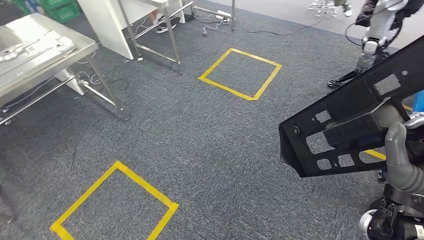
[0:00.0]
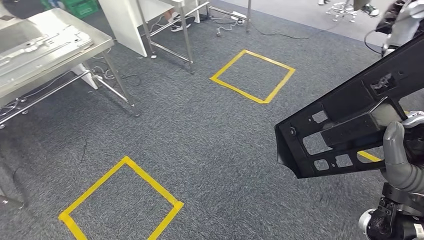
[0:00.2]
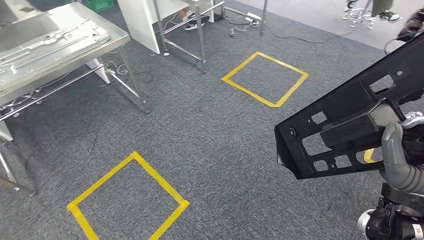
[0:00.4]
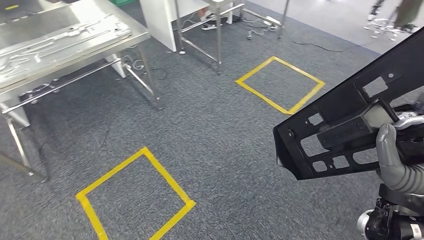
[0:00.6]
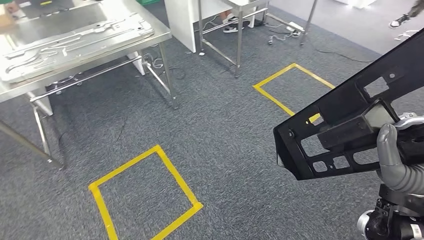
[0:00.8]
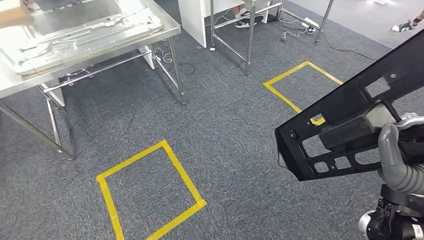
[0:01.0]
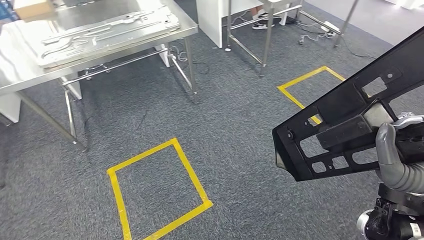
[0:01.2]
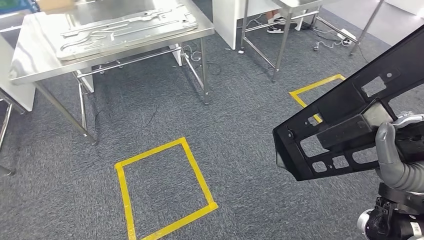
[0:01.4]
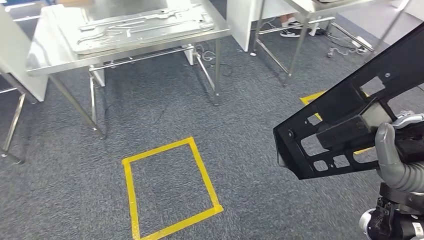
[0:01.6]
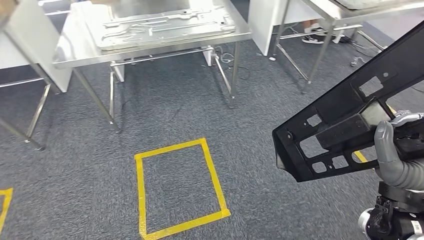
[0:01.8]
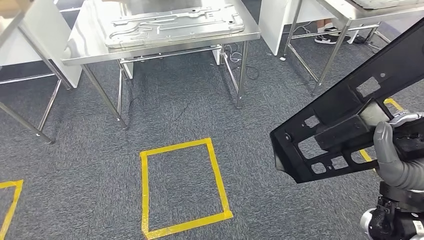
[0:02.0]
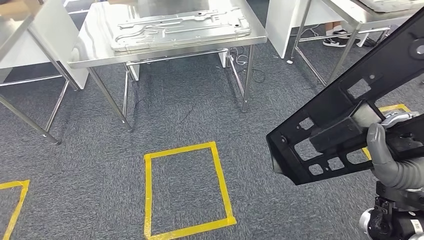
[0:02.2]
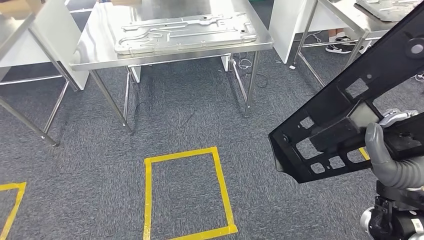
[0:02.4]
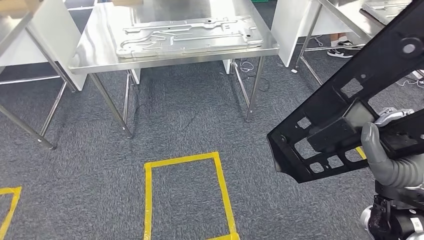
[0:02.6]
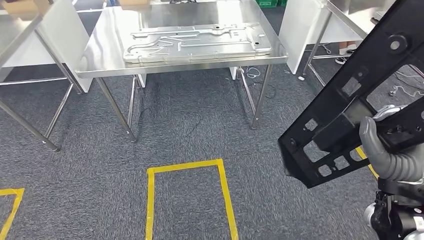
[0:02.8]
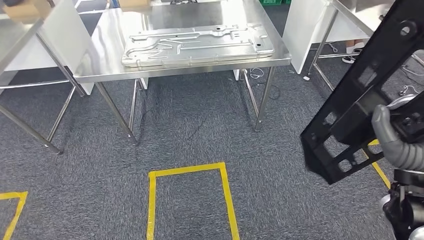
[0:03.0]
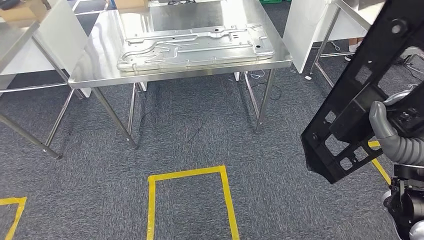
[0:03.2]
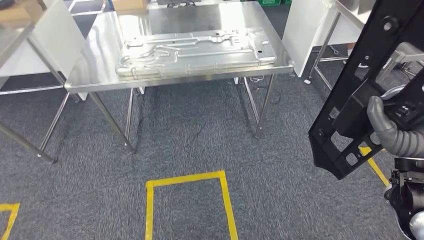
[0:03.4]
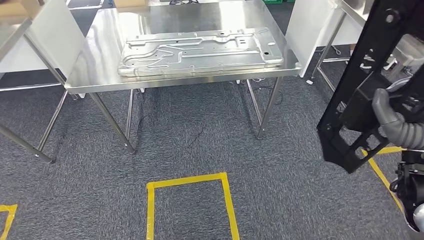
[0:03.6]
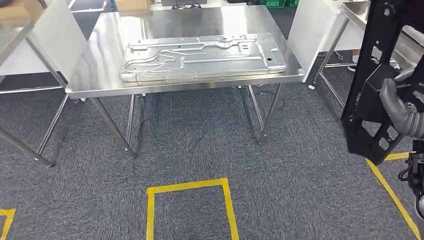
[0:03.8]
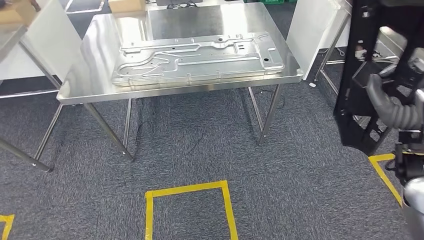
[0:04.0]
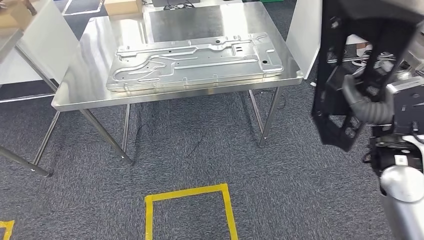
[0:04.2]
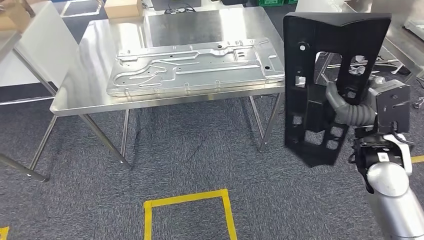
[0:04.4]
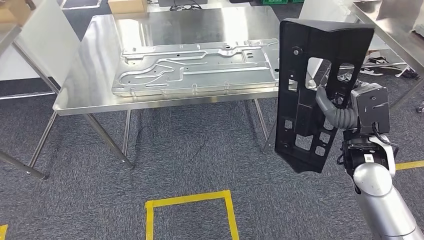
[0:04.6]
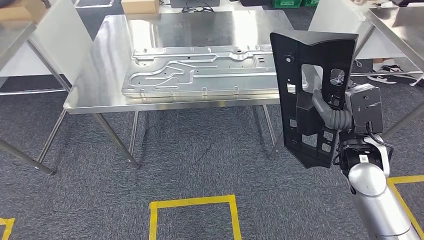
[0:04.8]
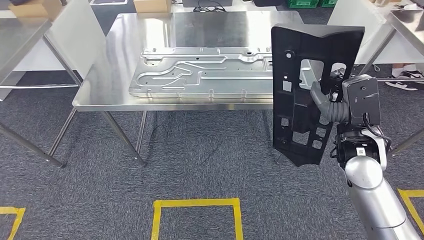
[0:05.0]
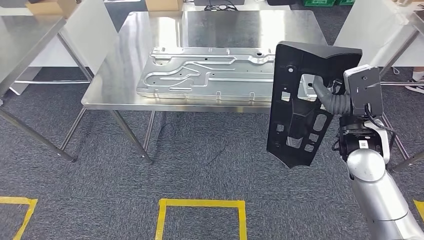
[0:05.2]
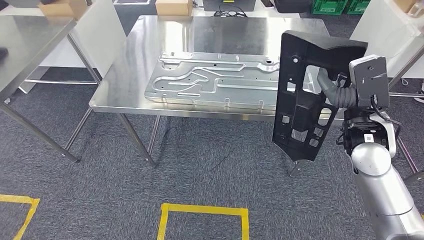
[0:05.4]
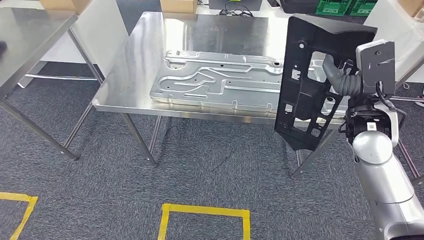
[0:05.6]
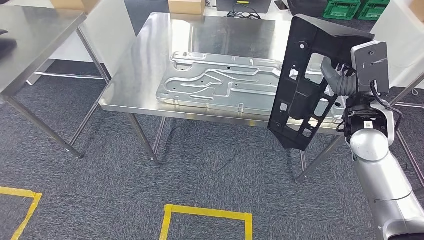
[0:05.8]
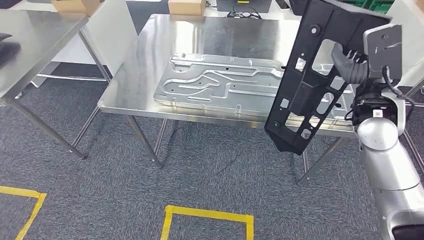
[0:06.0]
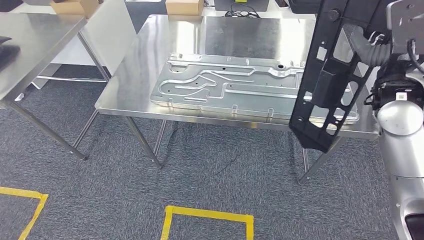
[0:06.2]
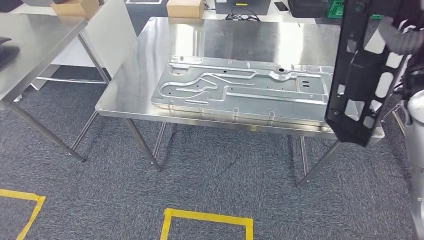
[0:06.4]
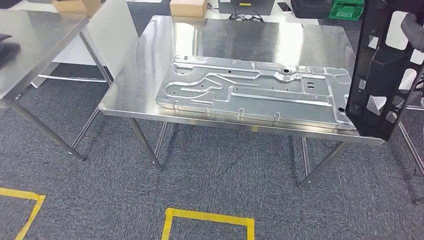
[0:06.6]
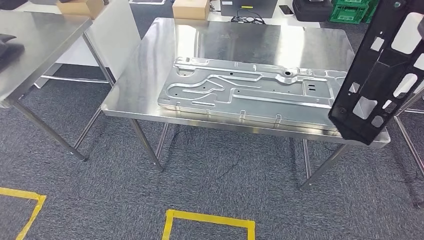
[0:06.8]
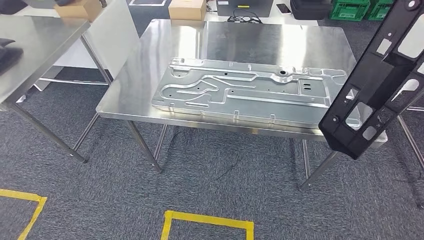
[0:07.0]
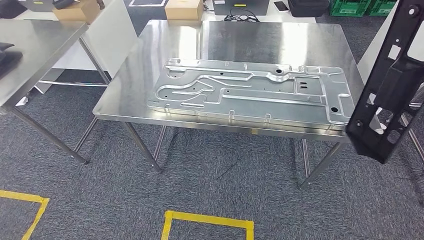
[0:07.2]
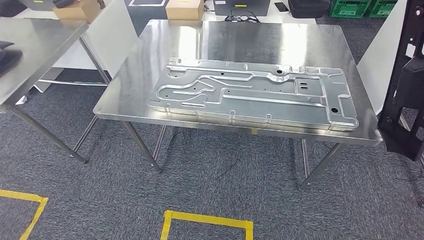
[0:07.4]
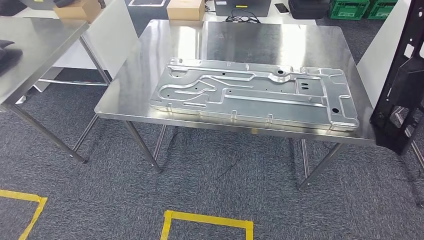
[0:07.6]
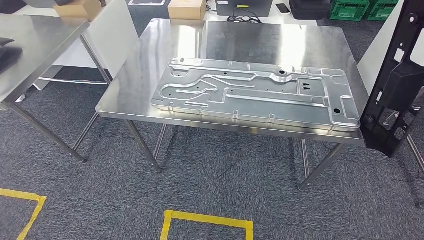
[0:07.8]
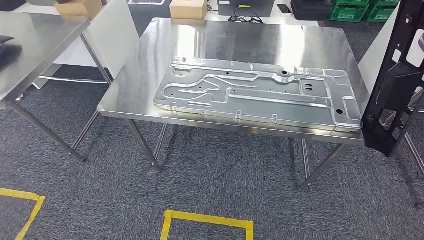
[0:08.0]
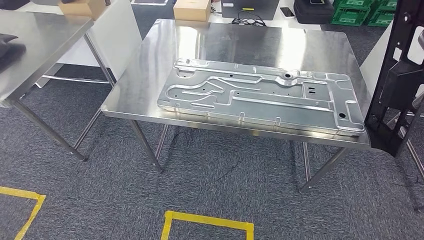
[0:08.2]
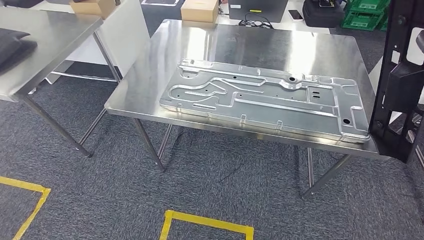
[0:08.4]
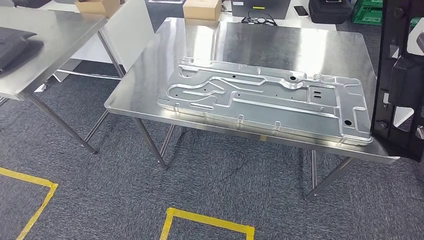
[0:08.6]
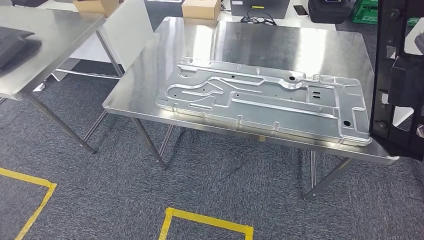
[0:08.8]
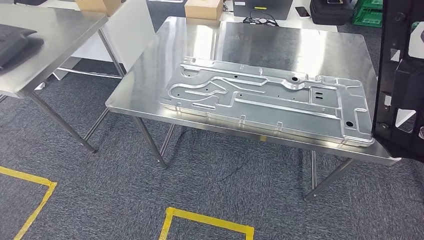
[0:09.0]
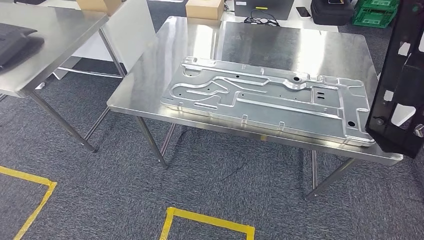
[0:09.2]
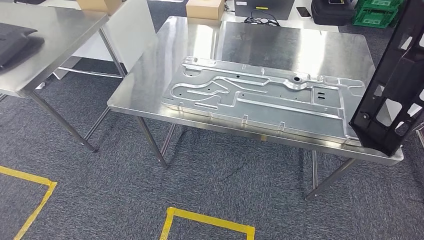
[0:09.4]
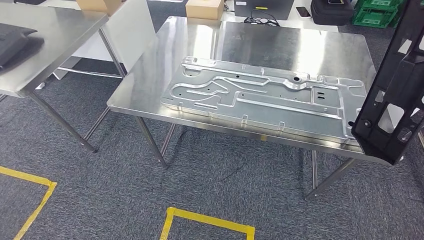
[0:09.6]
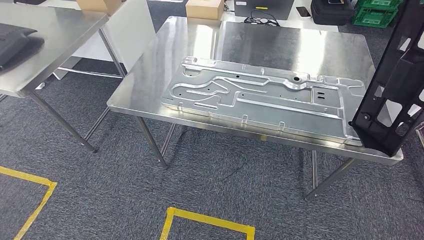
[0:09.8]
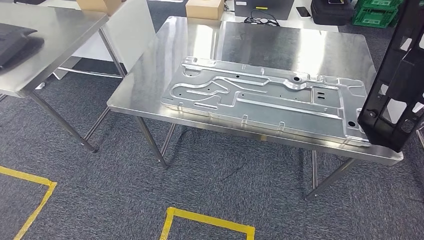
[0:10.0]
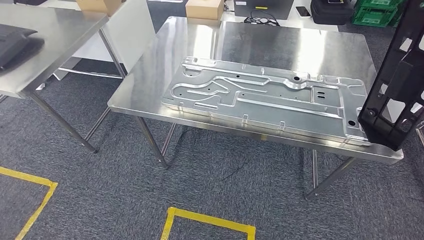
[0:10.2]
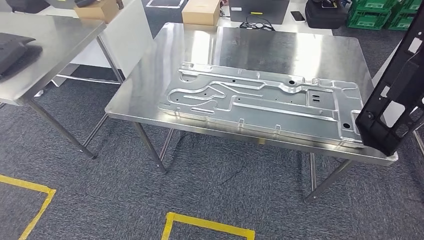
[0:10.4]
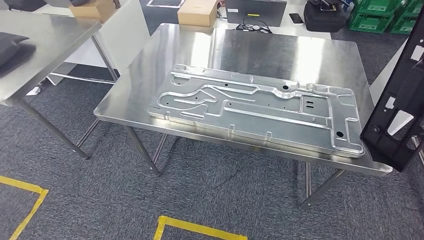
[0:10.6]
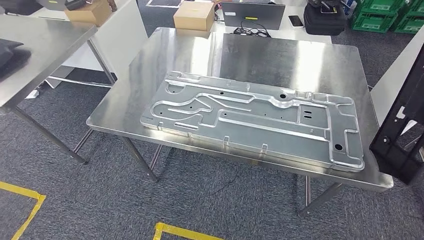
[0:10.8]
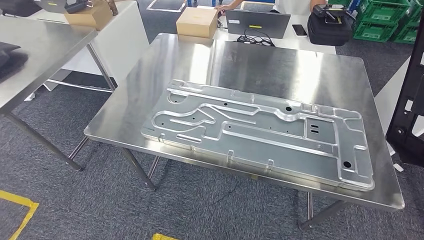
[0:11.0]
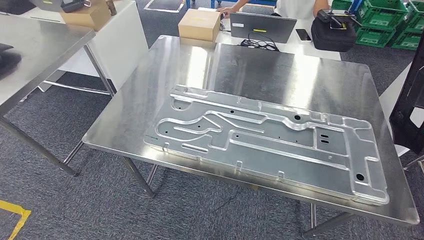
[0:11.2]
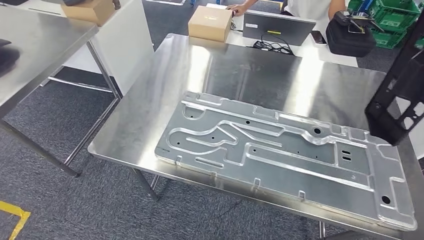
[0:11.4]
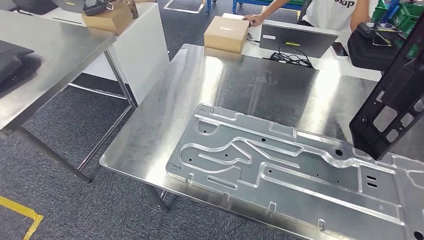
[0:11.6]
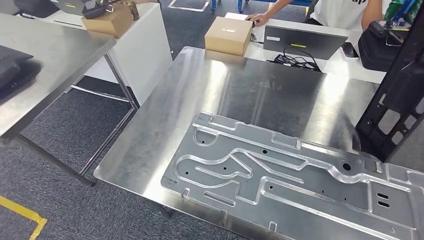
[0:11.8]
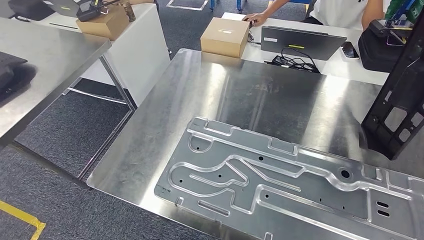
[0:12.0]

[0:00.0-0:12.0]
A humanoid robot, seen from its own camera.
Step, 0:00.0 to 0:05.6: Move the large material to the workbench.

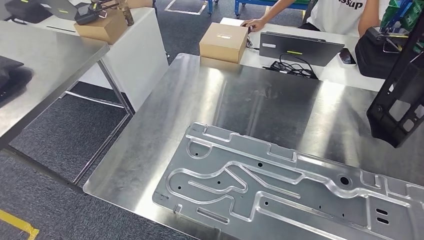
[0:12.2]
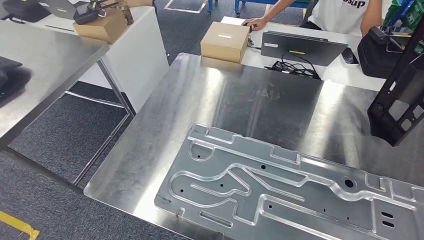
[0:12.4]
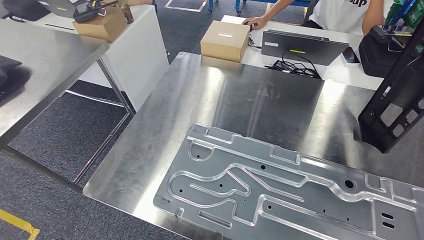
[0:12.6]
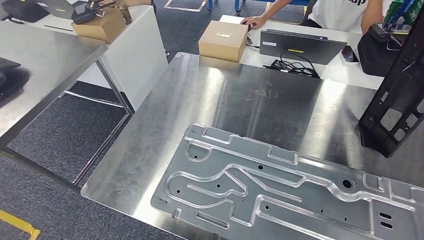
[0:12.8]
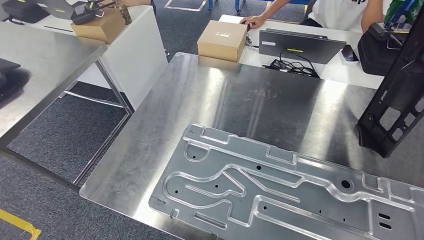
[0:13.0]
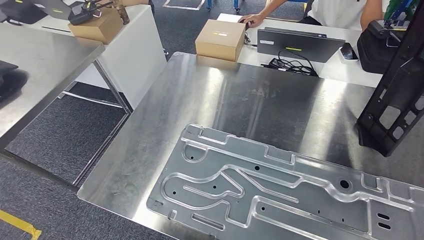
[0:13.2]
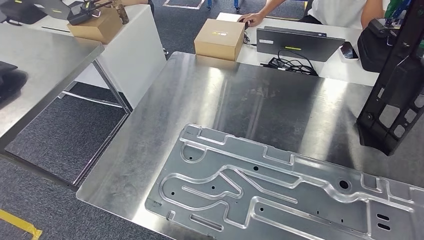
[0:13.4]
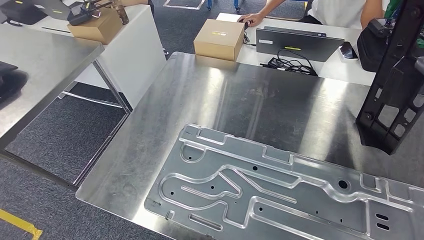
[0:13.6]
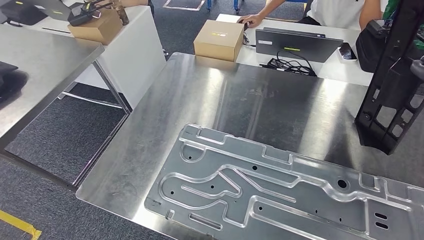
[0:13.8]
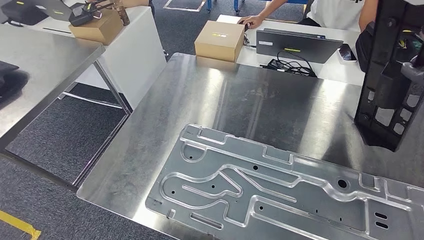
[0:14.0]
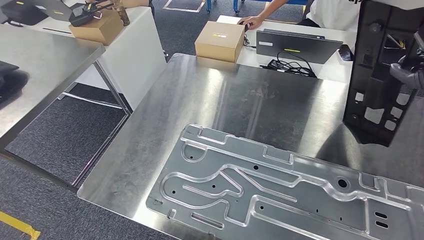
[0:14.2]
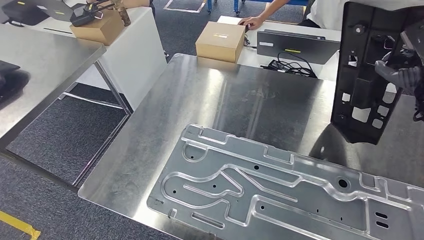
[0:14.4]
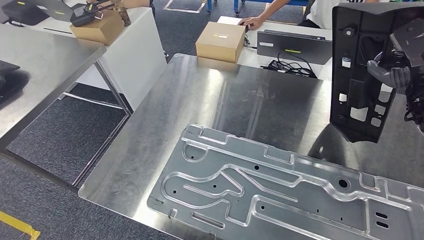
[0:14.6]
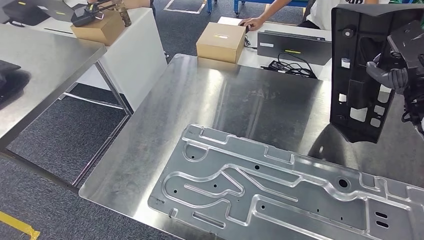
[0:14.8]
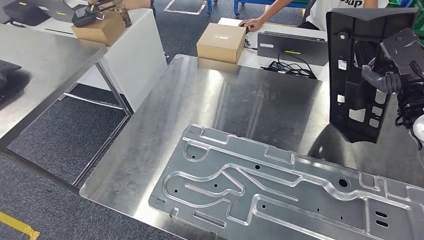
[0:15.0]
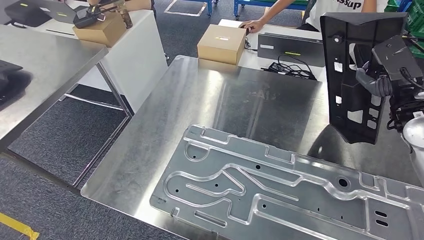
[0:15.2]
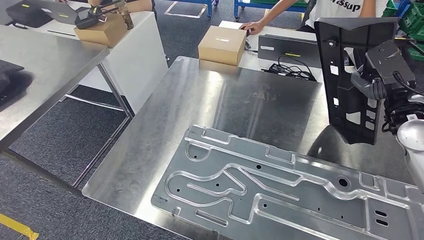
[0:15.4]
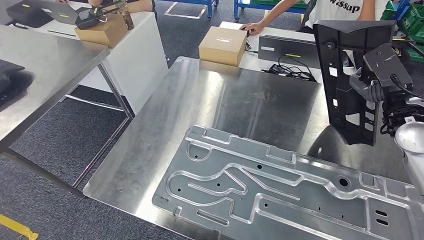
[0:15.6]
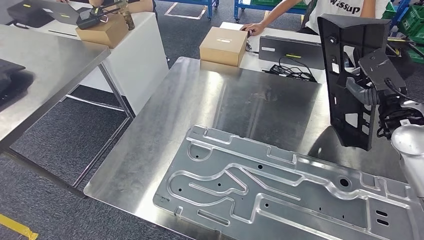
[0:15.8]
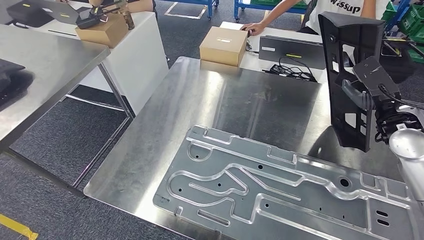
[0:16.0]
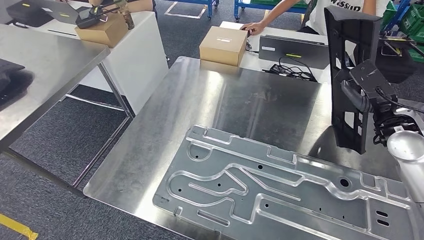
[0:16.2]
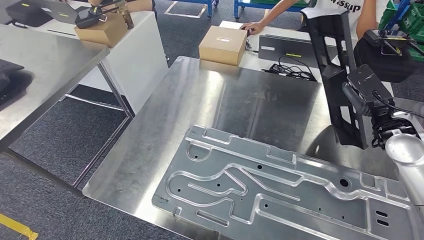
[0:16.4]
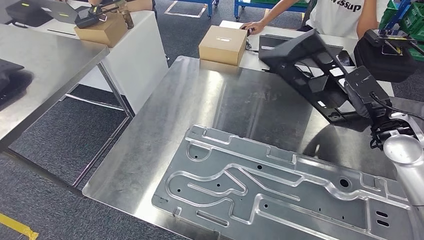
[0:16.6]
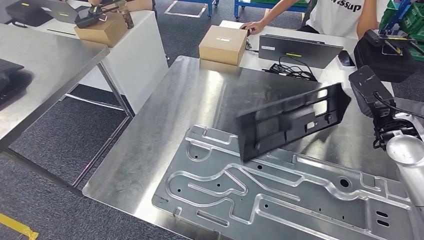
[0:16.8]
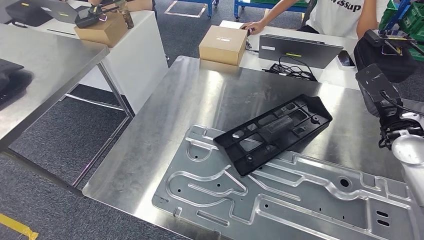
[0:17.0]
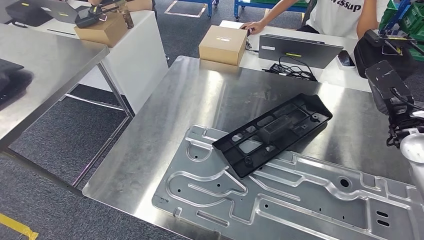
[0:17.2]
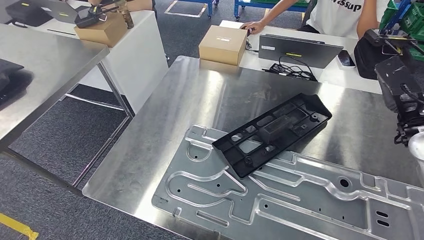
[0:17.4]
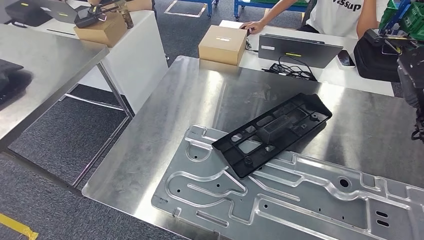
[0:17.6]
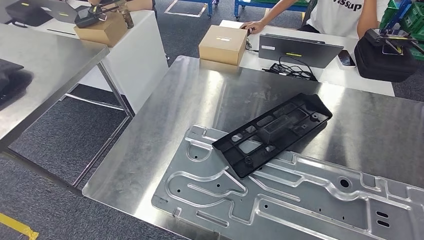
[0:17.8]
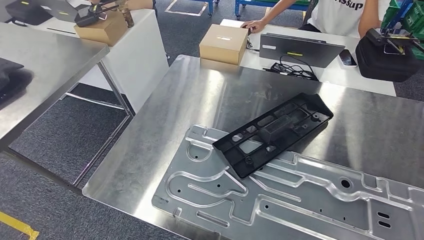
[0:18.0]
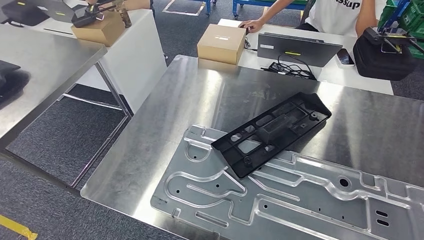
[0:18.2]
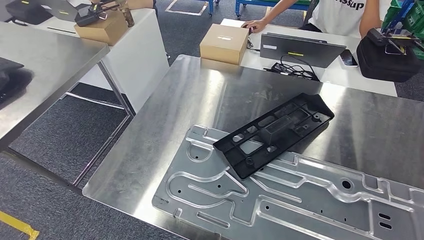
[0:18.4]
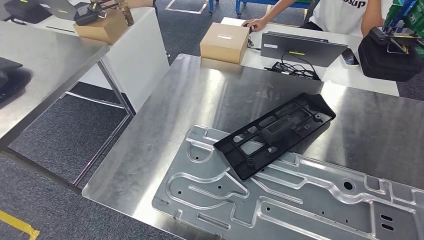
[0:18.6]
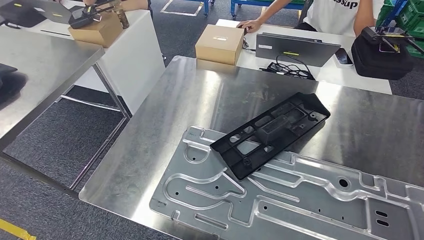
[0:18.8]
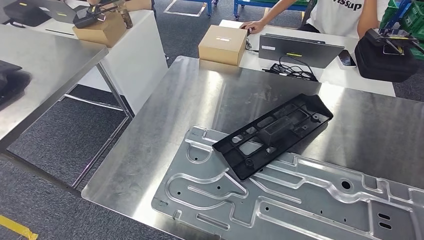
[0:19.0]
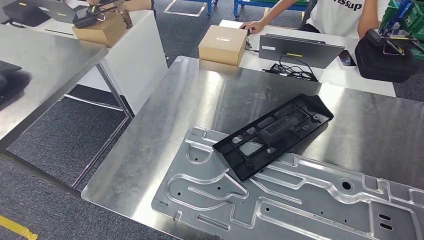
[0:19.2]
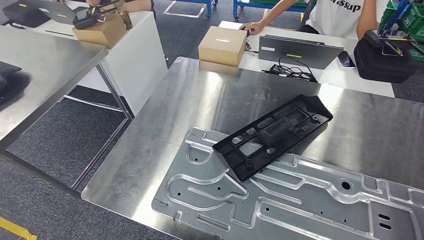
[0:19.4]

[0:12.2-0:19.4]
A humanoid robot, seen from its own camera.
0:18.0 to 0:19.4: The right hand is displaced to the right and backward by approximately 30 cm.
